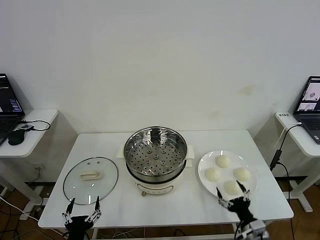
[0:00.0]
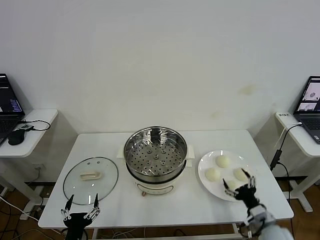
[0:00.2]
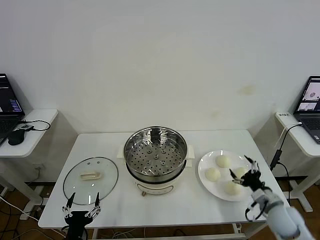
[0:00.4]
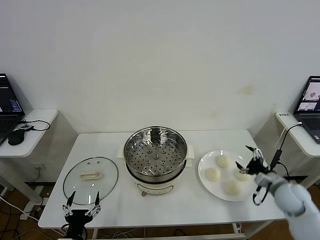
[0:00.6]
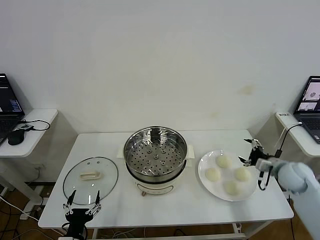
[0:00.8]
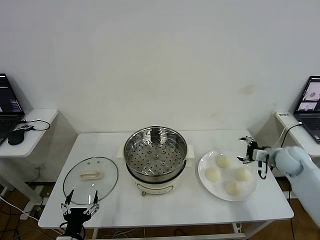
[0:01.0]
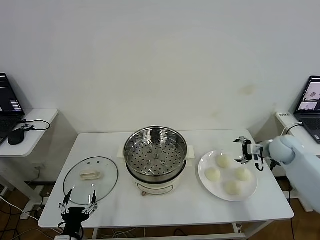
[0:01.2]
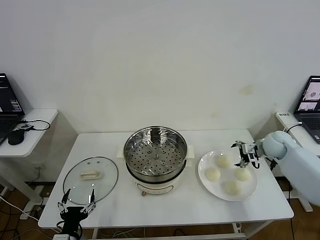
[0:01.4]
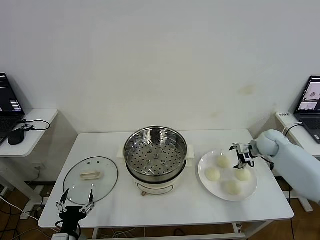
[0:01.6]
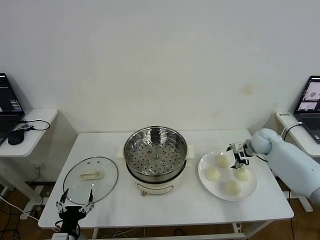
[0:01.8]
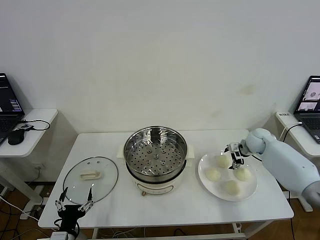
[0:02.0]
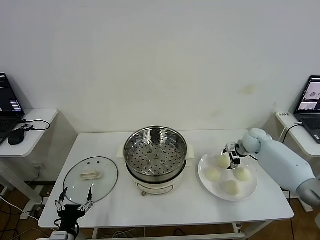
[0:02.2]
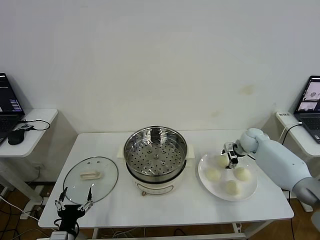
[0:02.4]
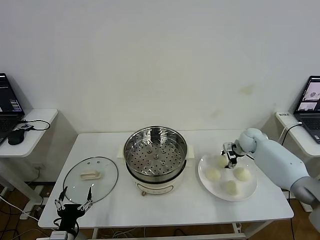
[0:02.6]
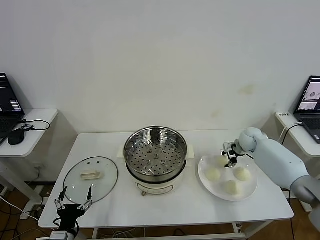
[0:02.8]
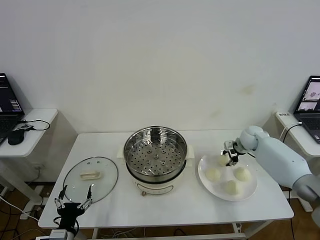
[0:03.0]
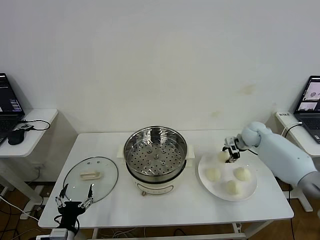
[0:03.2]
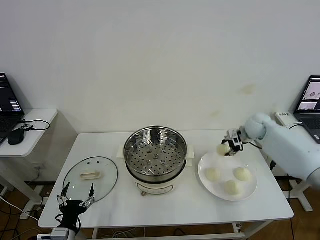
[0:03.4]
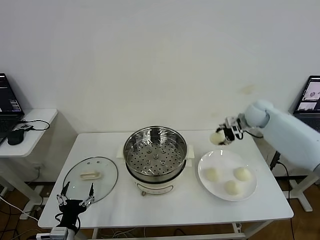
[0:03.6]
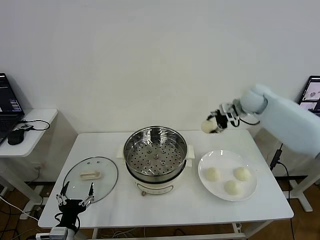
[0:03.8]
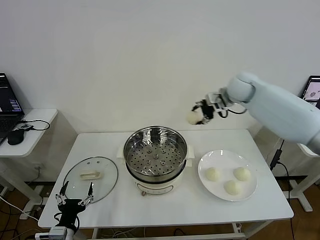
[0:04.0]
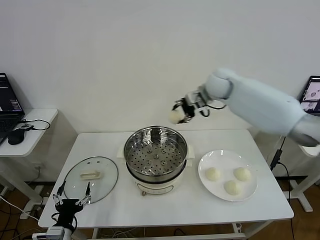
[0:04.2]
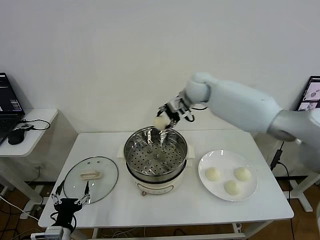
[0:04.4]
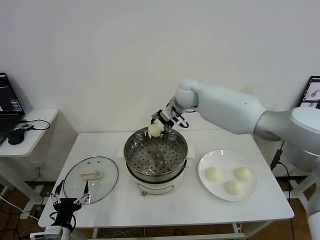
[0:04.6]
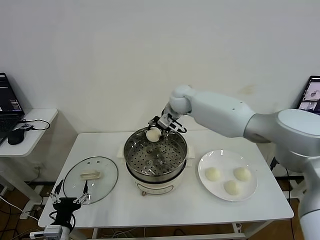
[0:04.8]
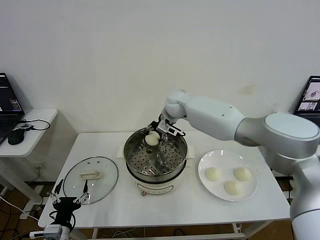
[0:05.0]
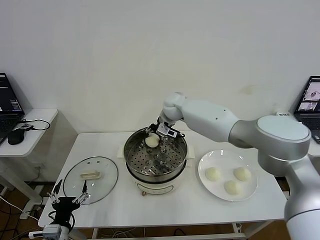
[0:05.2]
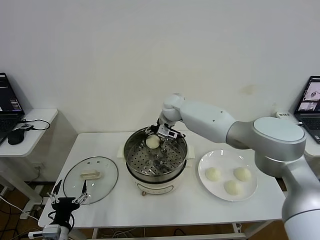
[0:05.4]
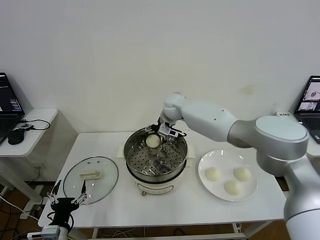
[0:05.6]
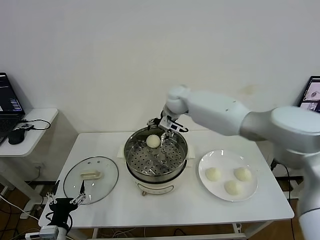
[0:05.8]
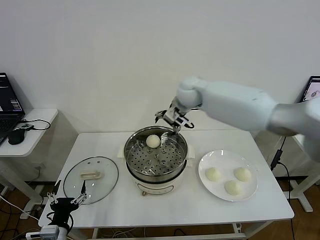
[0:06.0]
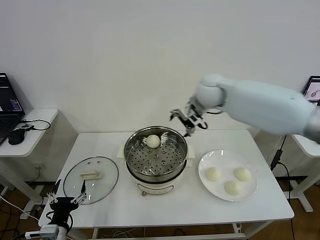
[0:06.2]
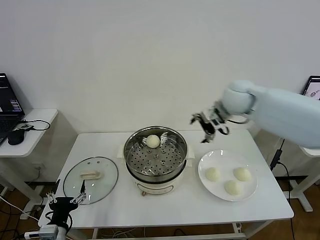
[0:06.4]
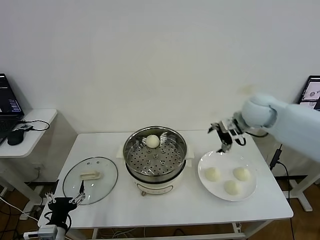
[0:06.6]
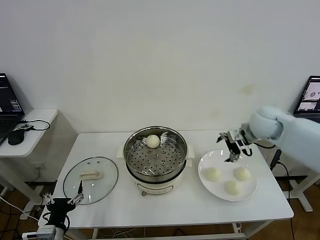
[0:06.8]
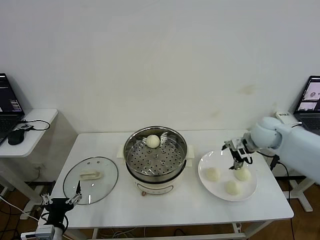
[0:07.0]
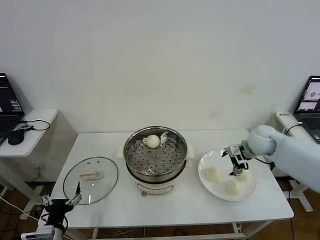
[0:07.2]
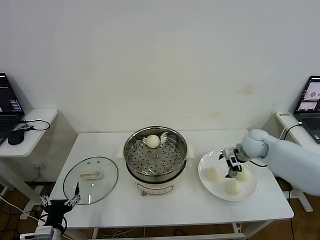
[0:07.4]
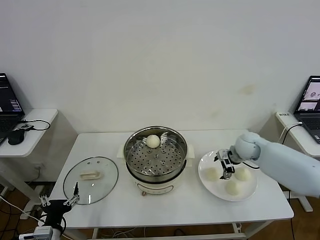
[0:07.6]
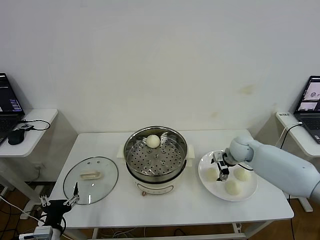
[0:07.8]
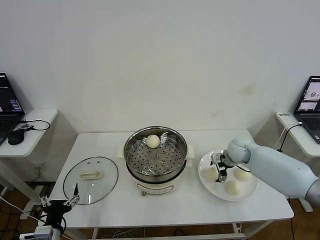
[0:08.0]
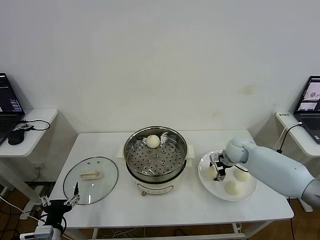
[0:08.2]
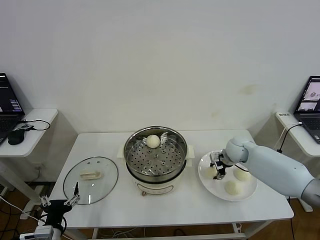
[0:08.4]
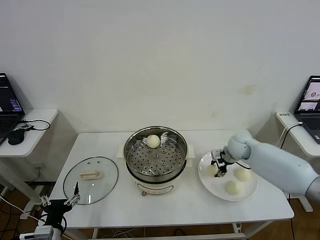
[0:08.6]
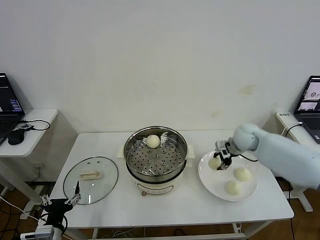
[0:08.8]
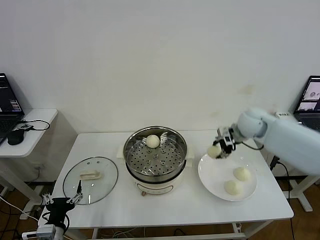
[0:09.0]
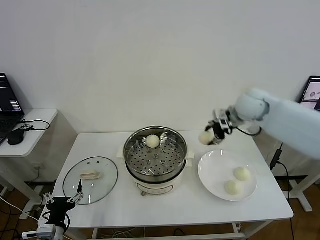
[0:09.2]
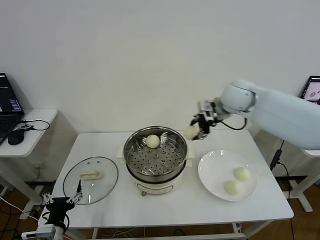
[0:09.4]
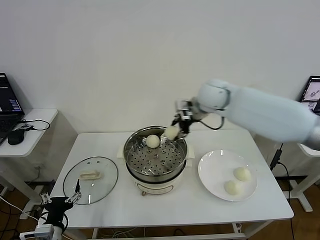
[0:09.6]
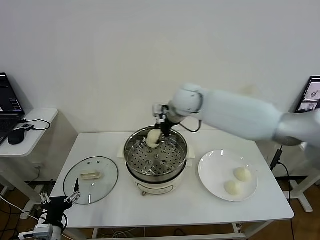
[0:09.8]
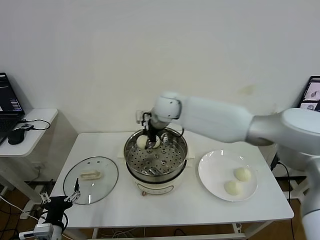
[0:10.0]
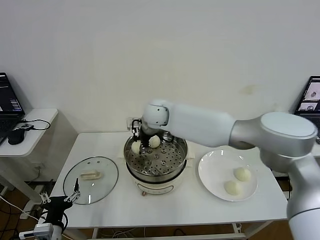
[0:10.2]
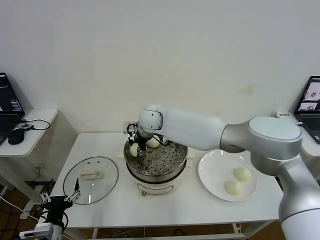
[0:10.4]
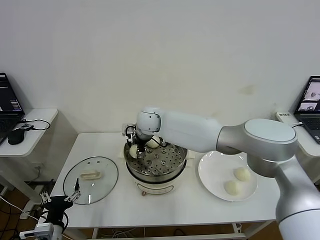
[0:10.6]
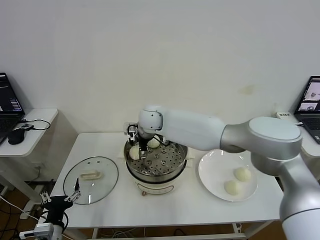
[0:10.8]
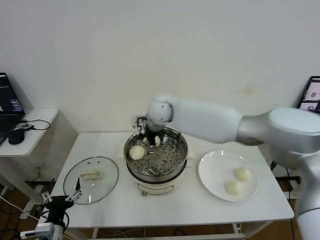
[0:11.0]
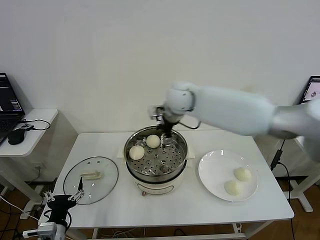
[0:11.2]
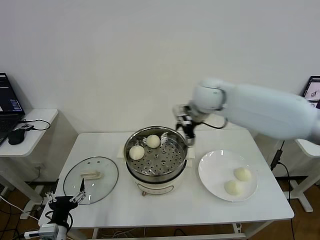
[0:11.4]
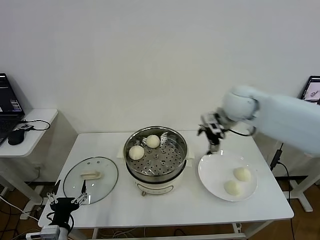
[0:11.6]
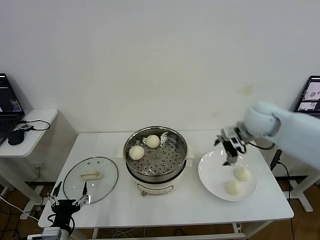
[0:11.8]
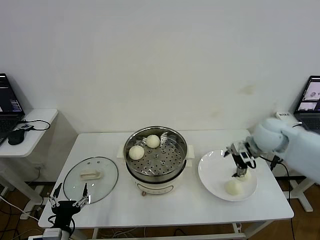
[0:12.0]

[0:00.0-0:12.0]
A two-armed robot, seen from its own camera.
Step, 0:00.0 to 0:02.8: Grasp the baozi in the plate with right gripper.
Step, 0:03.0 to 0:05.6: Place the baozi on the steamer with right gripper.
Step, 0:05.8 to 0:08.4: Grasp the baozi in the plate with right gripper.
Step, 0:08.6 to 0:10.6: Place the baozi on the steamer with right gripper.
0:01.6 to 0:03.0: The right gripper ends up roughly 5 cm from where it was, and closes.
0:03.0 to 0:04.4: The right gripper shifts approximately 35 cm to the left and upward.
0:04.4 to 0:06.0: The right gripper goes downward and returns, roughly 10 cm each way, and opens up.
0:06.0 to 0:07.6: The right gripper is displaced downward and to the right by about 30 cm.
0:07.6 to 0:09.0: The right gripper is displaced upward by approximately 15 cm, and closes up.
0:09.0 to 0:10.4: The right gripper goes approximately 35 cm to the left.
0:10.4 to 0:12.0: The right gripper heads to the right, covering approximately 40 cm, and opens its fingers.

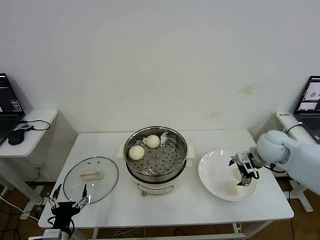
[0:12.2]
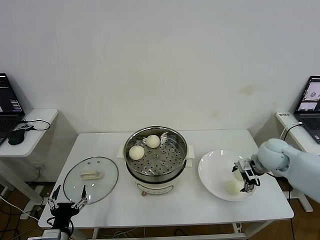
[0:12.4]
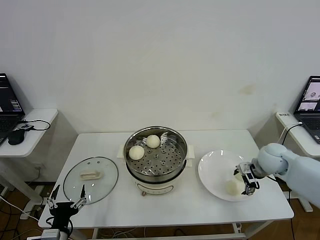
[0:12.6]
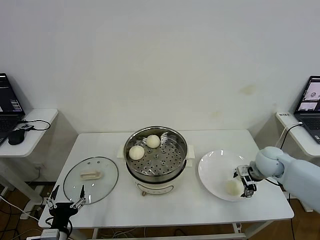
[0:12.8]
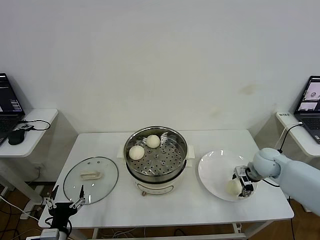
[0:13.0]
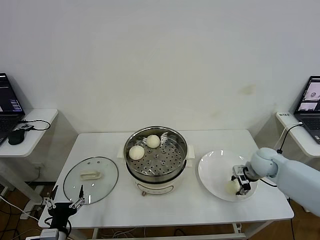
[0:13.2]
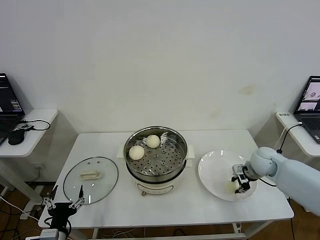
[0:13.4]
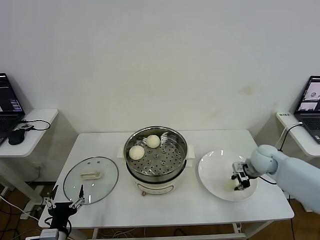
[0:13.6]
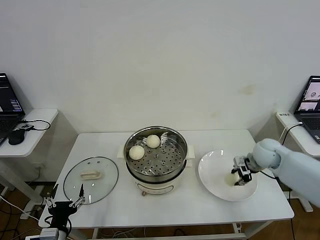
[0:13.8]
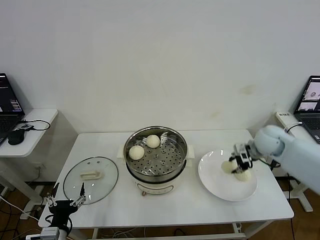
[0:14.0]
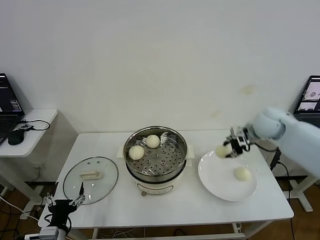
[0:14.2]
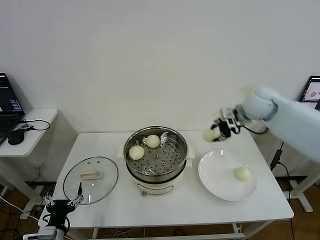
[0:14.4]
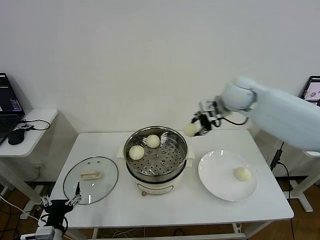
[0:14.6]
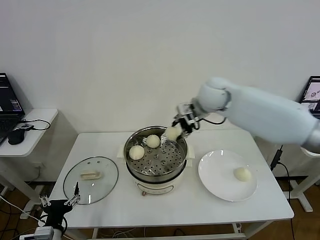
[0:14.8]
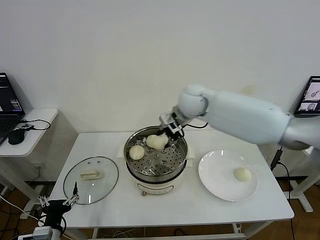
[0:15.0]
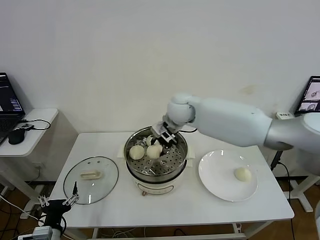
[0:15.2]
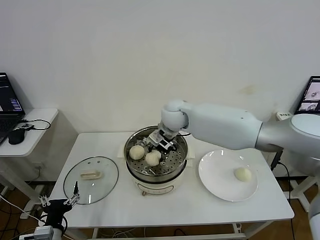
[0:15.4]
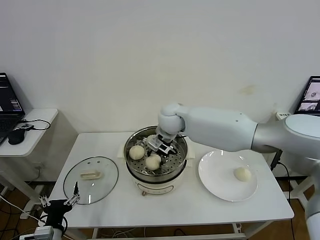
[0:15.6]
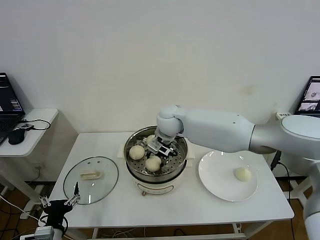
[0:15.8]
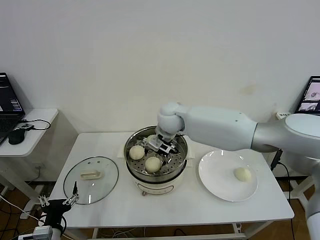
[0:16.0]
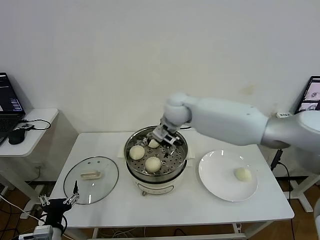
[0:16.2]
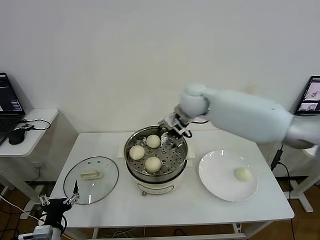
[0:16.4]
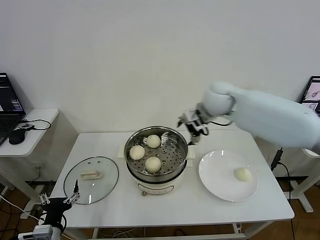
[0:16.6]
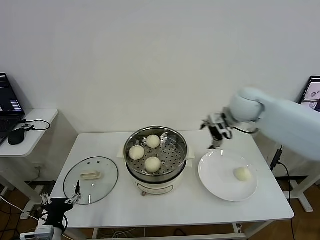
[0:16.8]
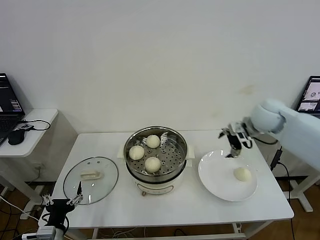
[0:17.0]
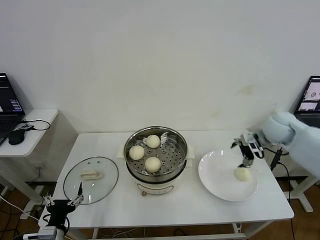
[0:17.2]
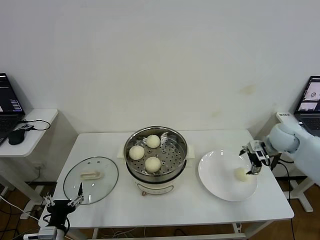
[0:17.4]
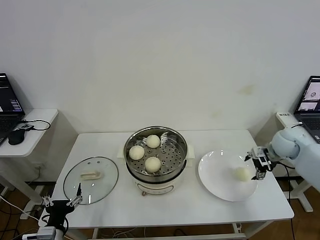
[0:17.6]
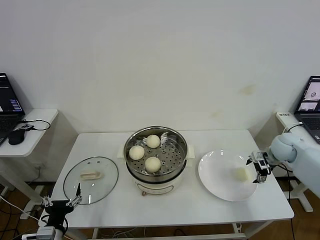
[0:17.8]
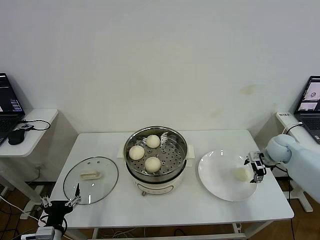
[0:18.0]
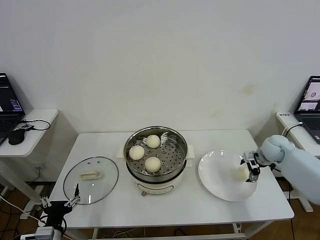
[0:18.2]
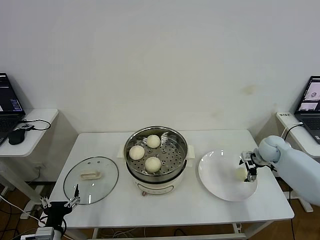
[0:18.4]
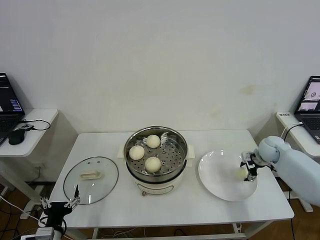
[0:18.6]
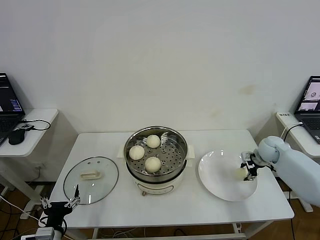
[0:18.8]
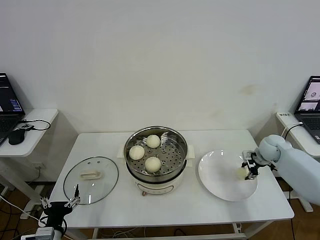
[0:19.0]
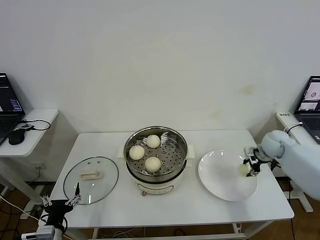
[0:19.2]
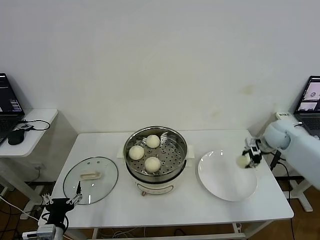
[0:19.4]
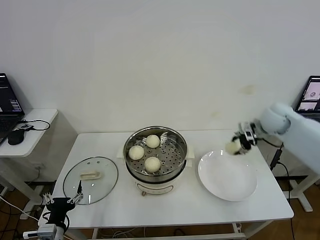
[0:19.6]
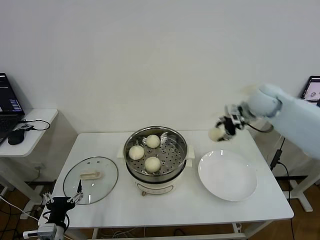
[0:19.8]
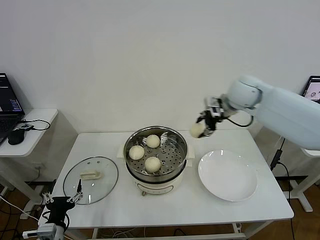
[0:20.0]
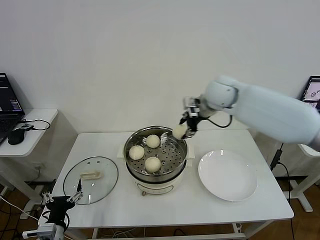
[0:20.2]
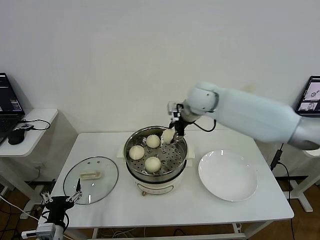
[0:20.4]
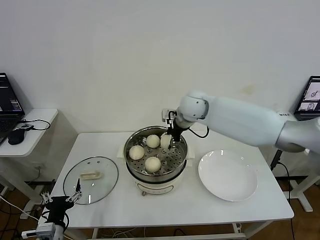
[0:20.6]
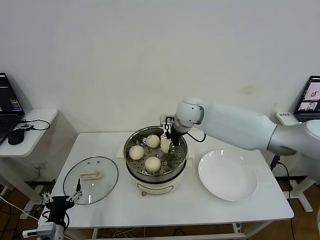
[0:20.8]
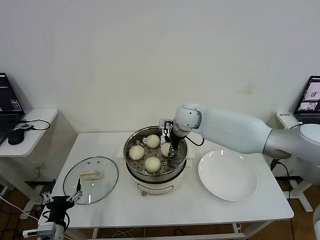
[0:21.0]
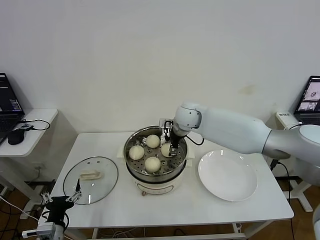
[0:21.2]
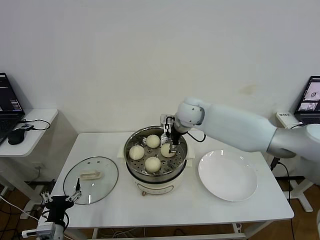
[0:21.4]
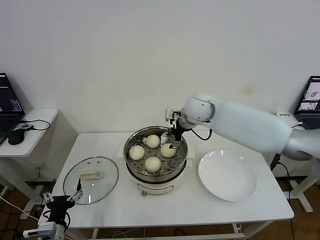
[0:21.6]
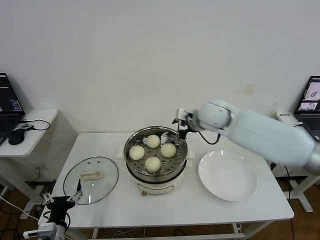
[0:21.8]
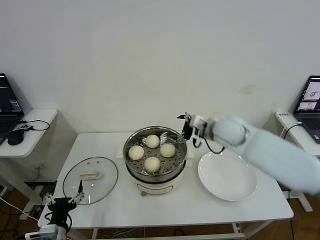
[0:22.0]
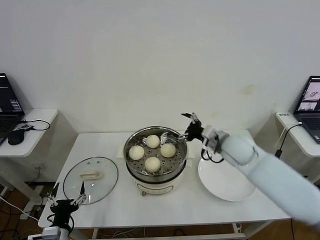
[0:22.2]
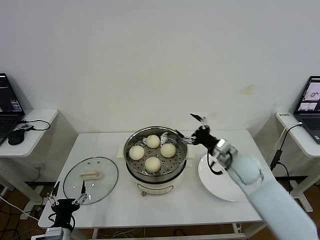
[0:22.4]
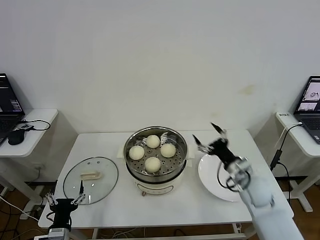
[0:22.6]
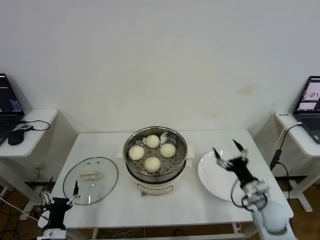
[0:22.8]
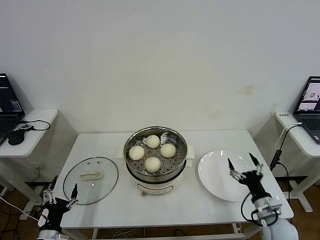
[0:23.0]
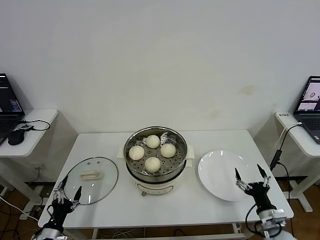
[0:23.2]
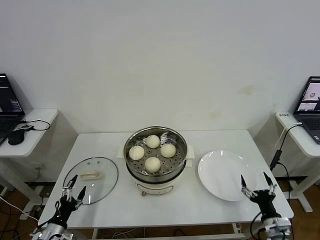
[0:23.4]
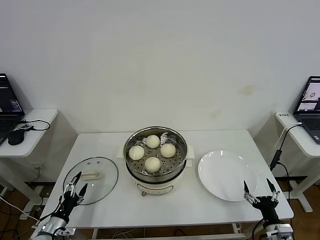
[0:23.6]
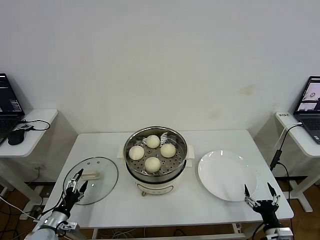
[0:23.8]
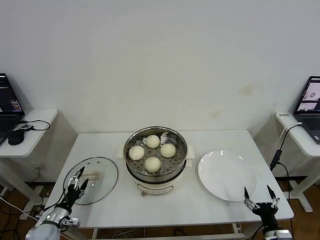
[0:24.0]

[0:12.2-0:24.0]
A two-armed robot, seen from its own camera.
Step, 0:13.6 to 0:16.0: Place the baozi on the steamer with right gripper.
Step, 0:16.2 to 0:18.8: Grasp the baozi in the plate with right gripper.
Step, 0:19.0 to 0:21.2: Place the baozi on the steamer with right gripper.
0:12.2 to 0:13.6: The right gripper shifts some 5 cm downward, and closes up.
0:13.6 to 0:15.2: The right gripper travels to the left and upward by some 35 cm.
0:15.2 to 0:16.6: The right gripper goes about 15 cm to the right, and opens its fingers.
0:16.6 to 0:18.2: The right gripper travels to the right and downward by some 30 cm.
0:18.2 to 0:19.6: The right gripper travels upward and to the left by about 15 cm, and closes its fingers.
0:19.6 to 0:21.0: The right gripper shifts about 30 cm to the left.
0:21.0 to 0:22.6: The right gripper is displaced to the right, backward and downward by approximately 30 cm, and opens up.
0:22.6 to 0:24.0: The left gripper goes approximately 15 cm to the left, forward and downward. The right gripper shifts roughly 25 cm backward, downward and to the right.
